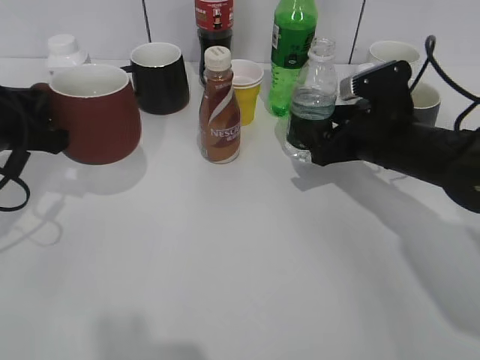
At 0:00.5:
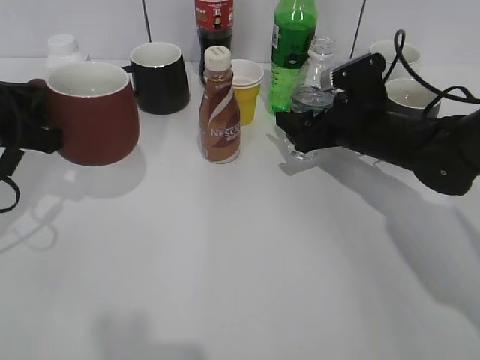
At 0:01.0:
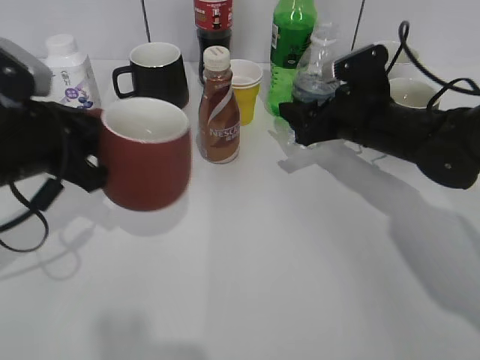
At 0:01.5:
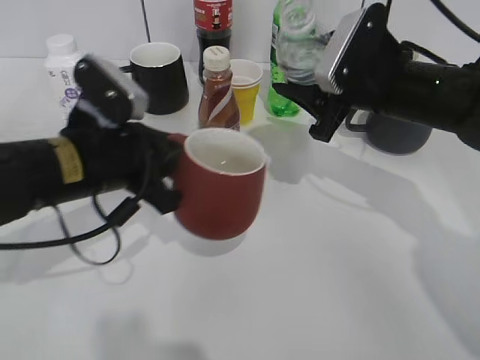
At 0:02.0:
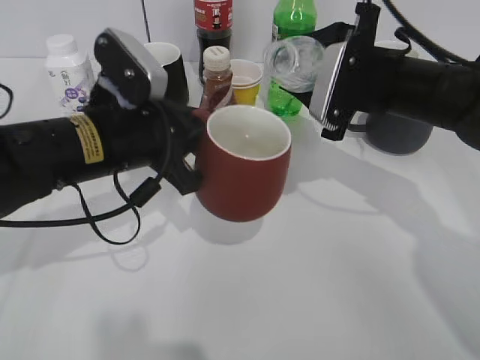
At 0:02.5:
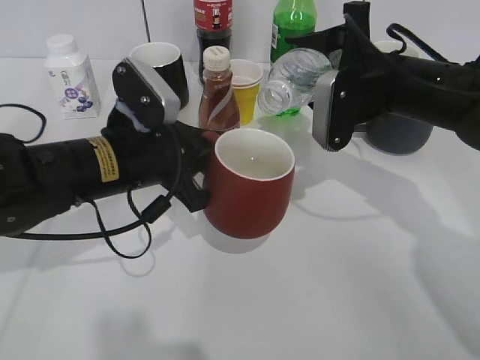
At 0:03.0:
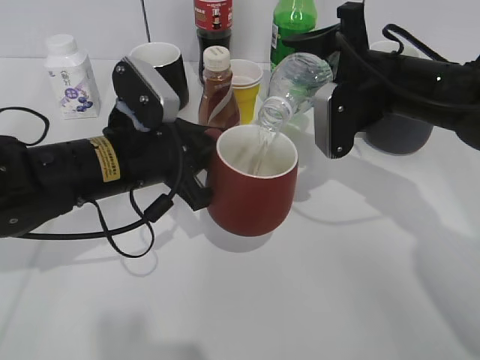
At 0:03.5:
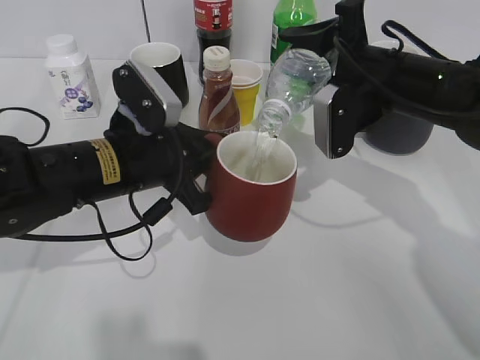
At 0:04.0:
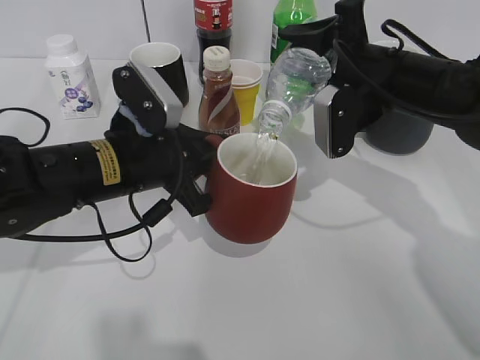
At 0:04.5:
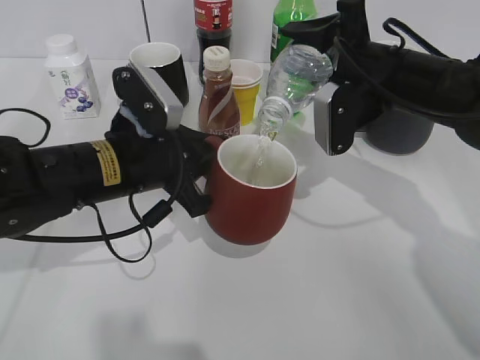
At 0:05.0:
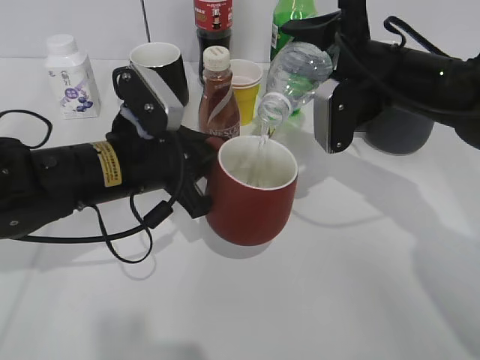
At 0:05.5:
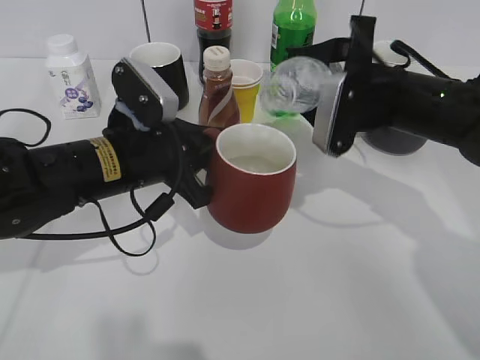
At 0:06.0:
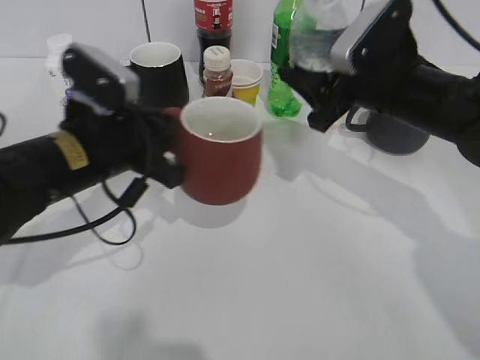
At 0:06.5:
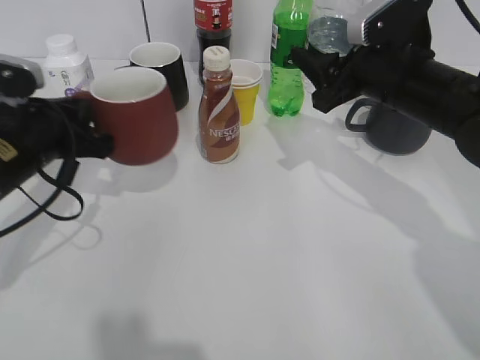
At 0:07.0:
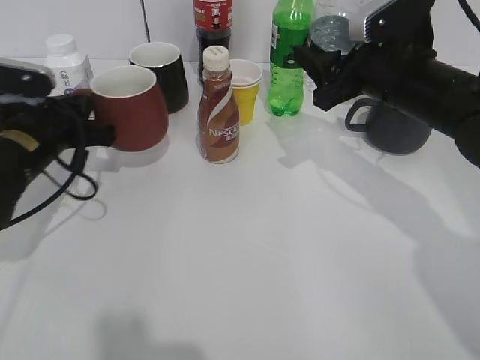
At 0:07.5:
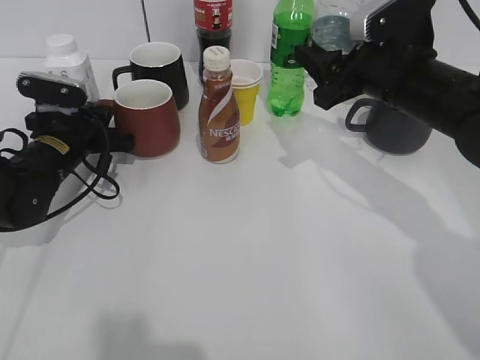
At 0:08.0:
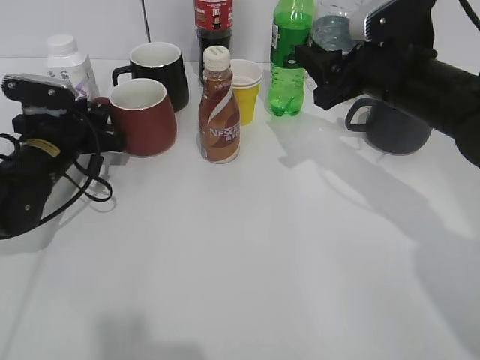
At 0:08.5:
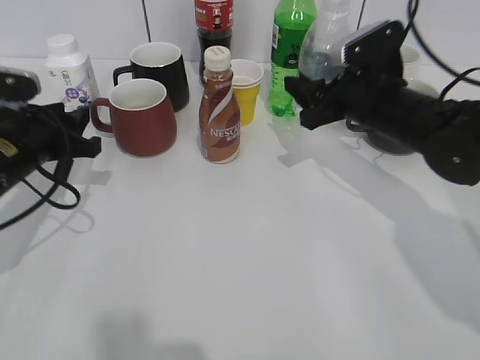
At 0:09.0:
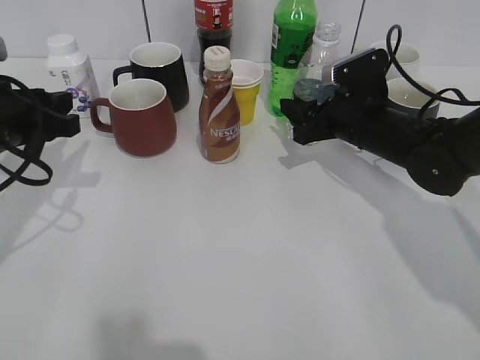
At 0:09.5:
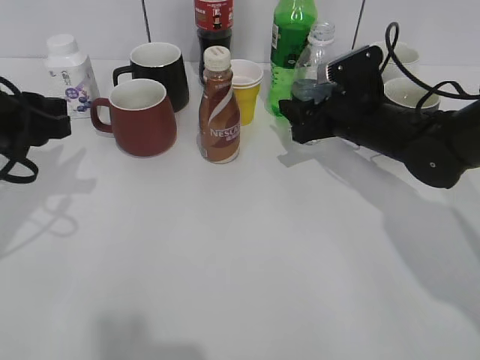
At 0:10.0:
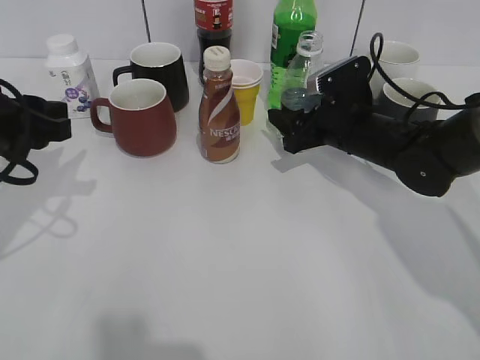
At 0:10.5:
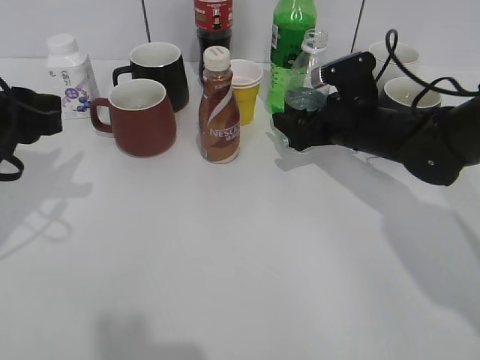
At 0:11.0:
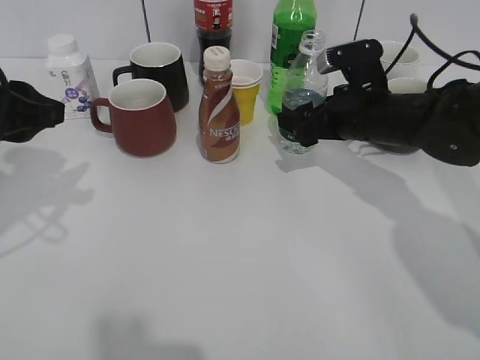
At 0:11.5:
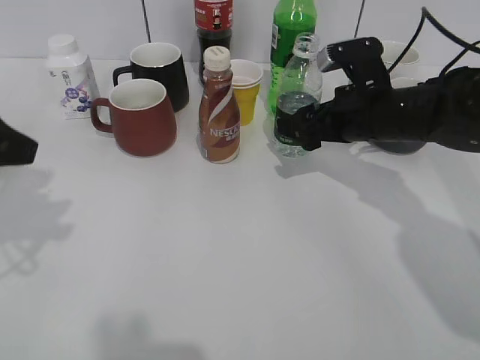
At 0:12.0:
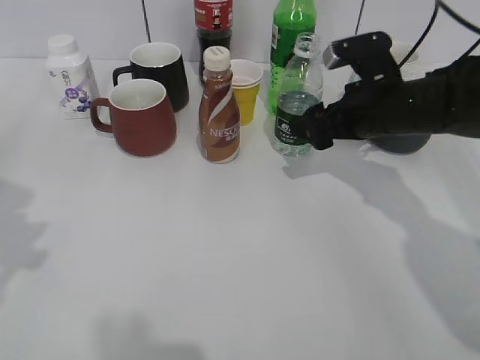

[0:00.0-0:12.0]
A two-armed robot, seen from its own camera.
Step, 0:00.0 to 0:00.5: Grasp the bottle with water with right gripper.
Step, 0:01.0 to 0:05.0: Pour the water from bottle to cup with right gripper.
Step, 0:05.5 to 0:07.5: Place the red cup on the table with left gripper.
0:00.0 to 0:02.0: The right gripper heads upward, covering approximately 5 cm, and closes. Meanwhile the left gripper heads to the right, covering roughly 15 cm.
0:06.0 to 0:08.0: The left gripper shifts approximately 15 cm forward, to the left and downward, and opens up.
0:08.0 to 0:10.0: The left gripper shifts approximately 15 cm upward and backward. The right gripper travels downward by about 10 cm.
0:10.0 to 0:12.0: The left gripper is displaced backward and upward by roughly 15 cm. The right gripper shifts by roughly 5 cm, and opens.

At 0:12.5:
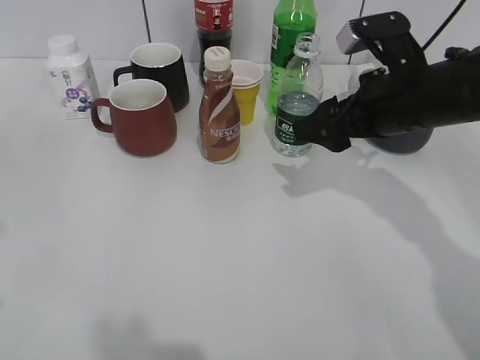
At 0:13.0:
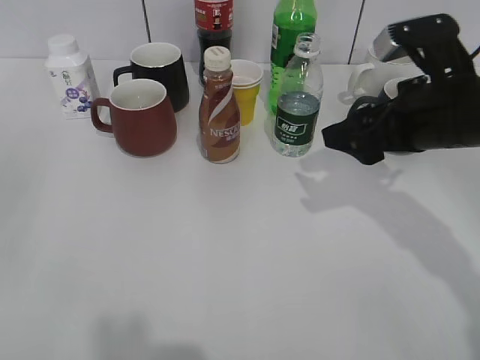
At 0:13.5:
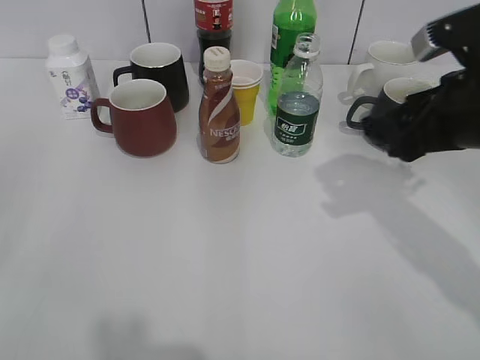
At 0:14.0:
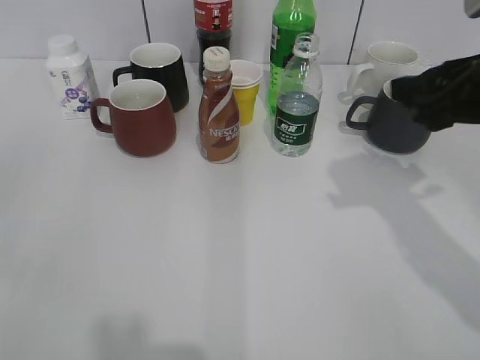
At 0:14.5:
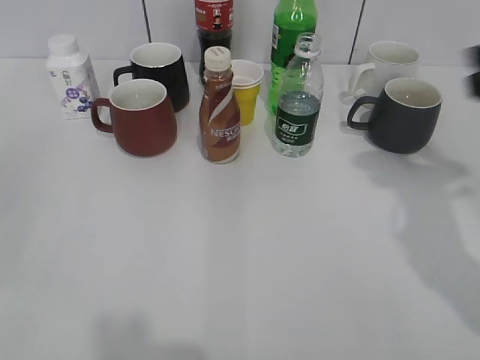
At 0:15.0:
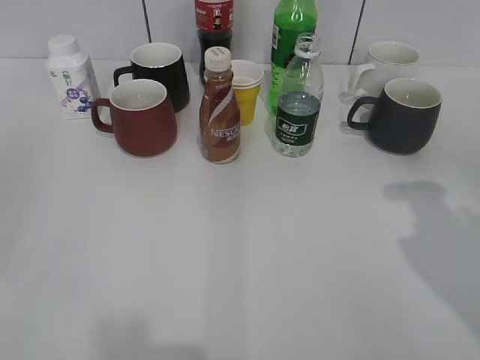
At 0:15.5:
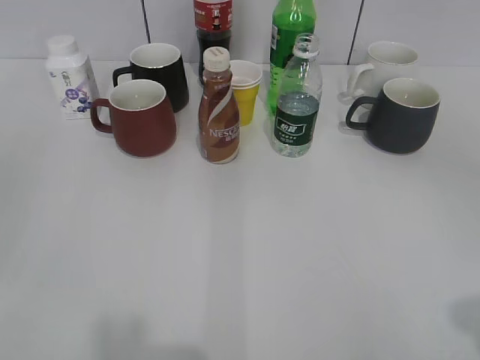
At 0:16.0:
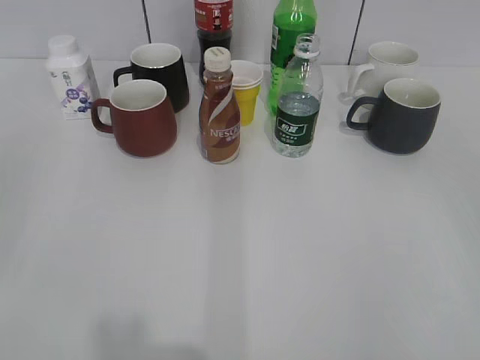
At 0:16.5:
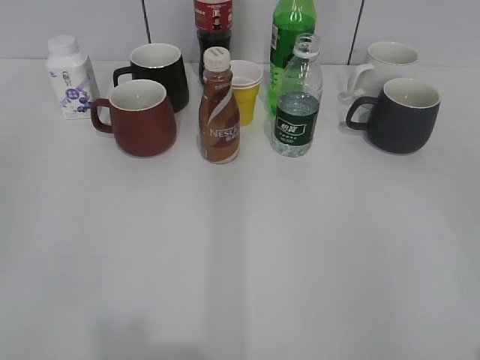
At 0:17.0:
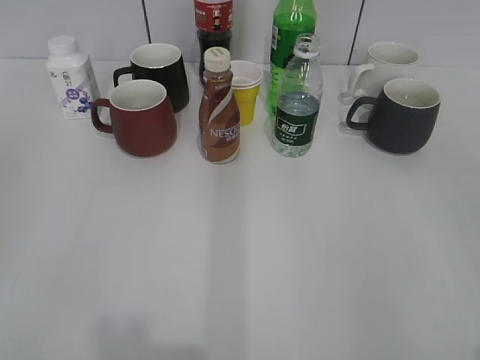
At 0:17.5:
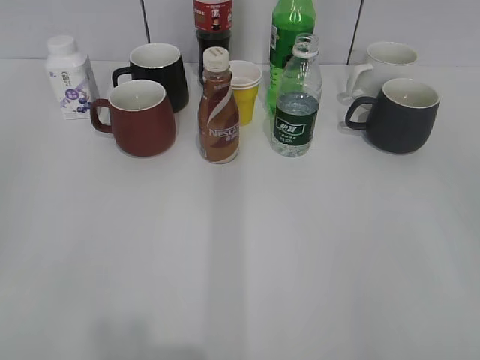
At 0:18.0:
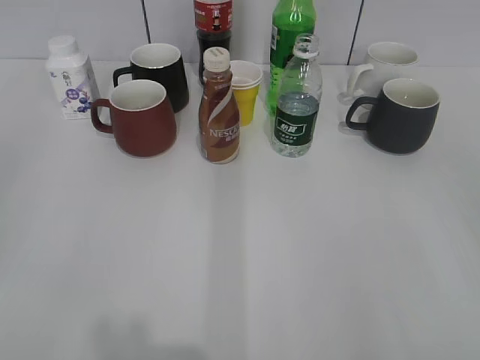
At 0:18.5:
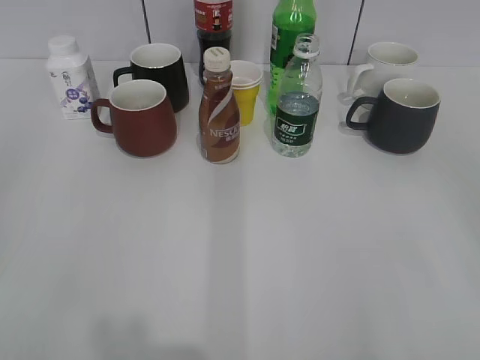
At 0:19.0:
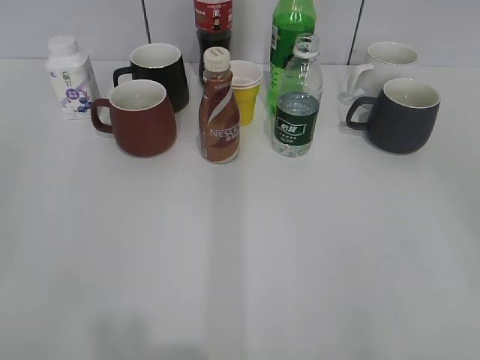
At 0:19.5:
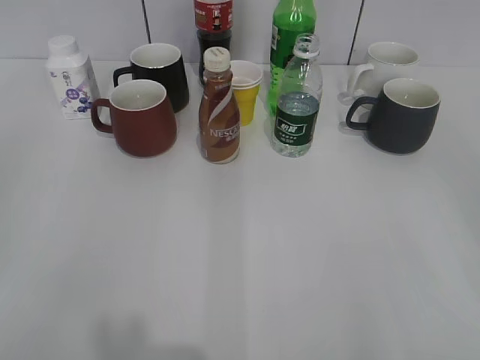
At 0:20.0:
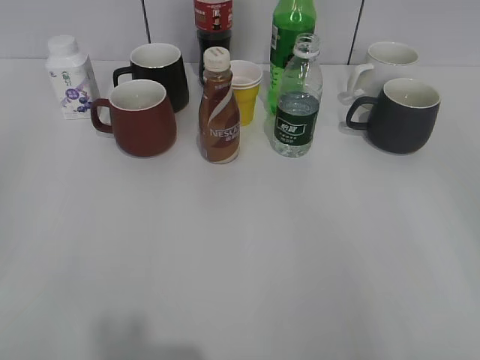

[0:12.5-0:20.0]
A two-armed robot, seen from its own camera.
0:12.5 to 0:14.5: The right gripper is displaced to the right, upward and backward by approximately 15 cm, and closes its fingers. The left gripper heads backward, covering roughly 10 cm.
0:14.5 to 0:16.5: The right gripper is displaced backward by some 25 cm, and closes.
0:18.0 to 0:20.0: Both grippers stay about where they are.

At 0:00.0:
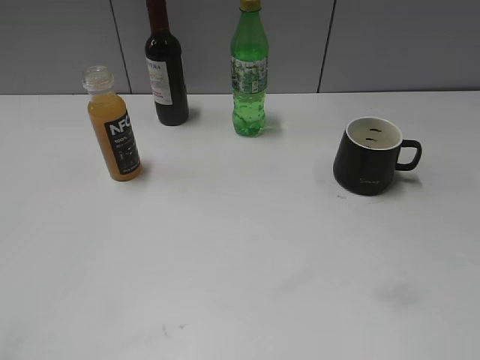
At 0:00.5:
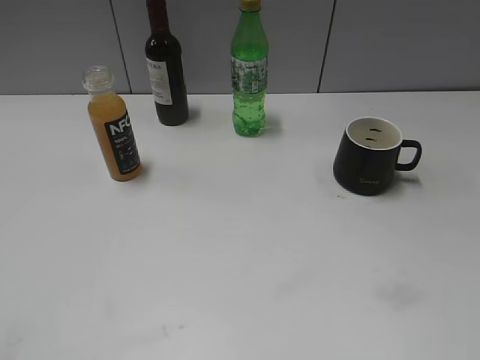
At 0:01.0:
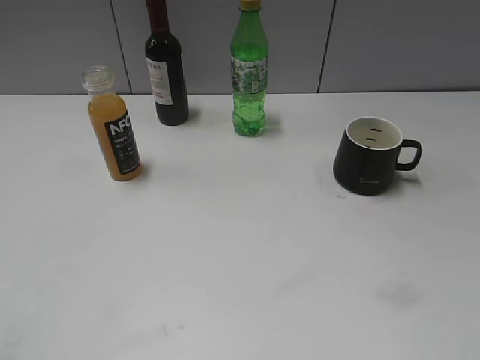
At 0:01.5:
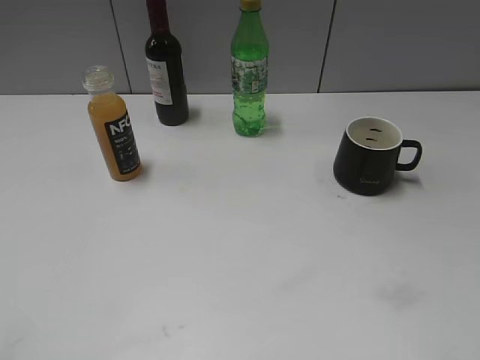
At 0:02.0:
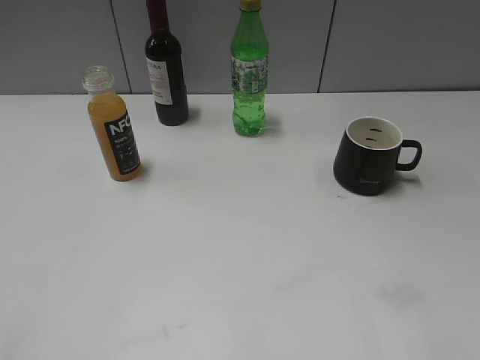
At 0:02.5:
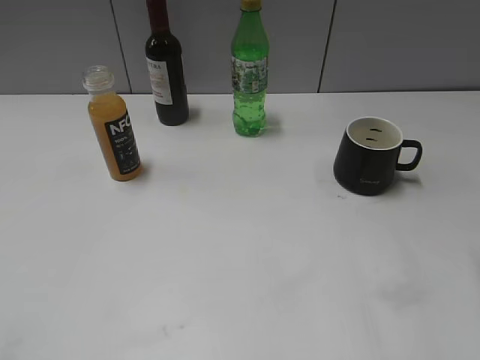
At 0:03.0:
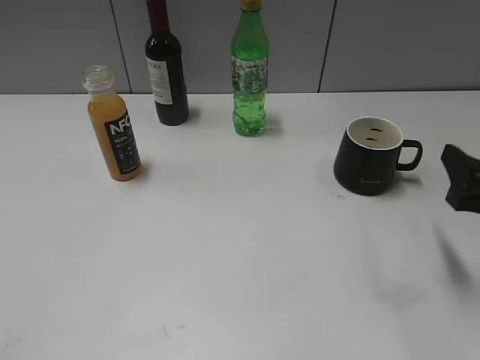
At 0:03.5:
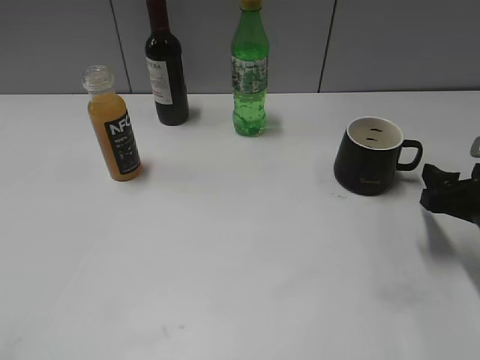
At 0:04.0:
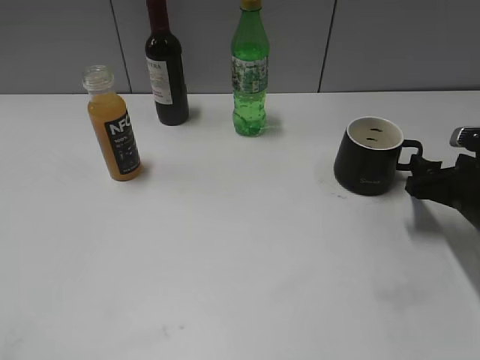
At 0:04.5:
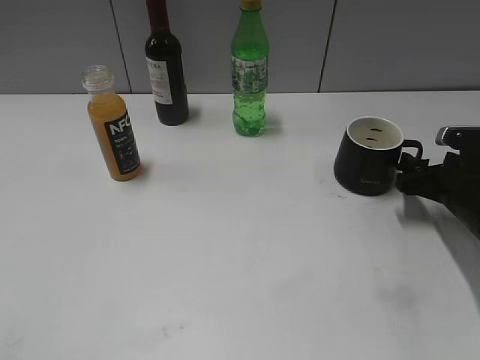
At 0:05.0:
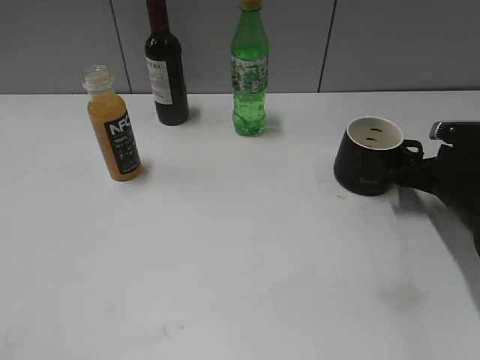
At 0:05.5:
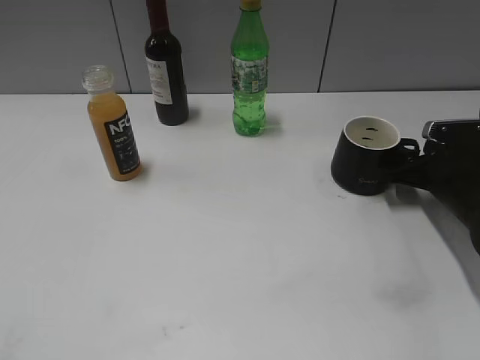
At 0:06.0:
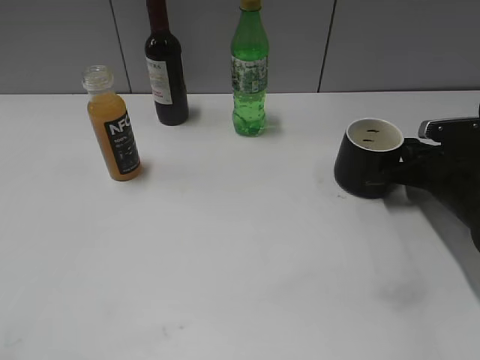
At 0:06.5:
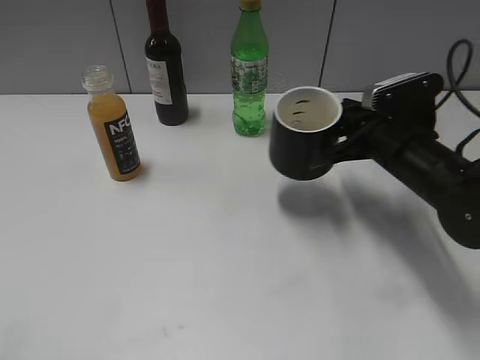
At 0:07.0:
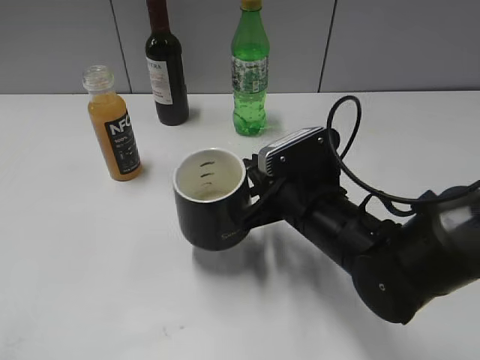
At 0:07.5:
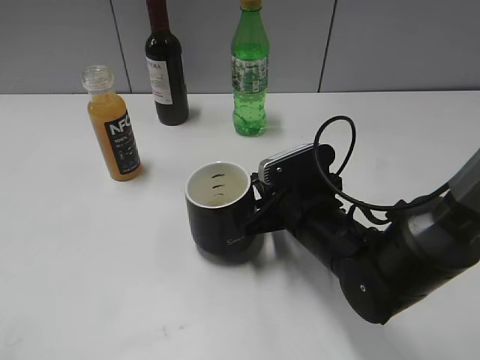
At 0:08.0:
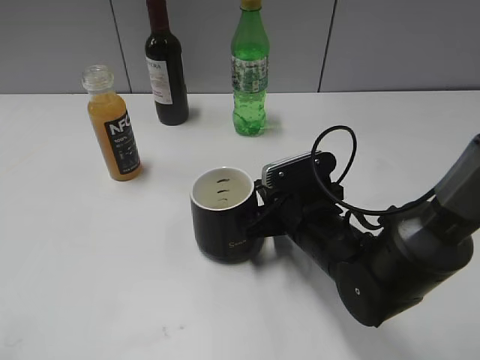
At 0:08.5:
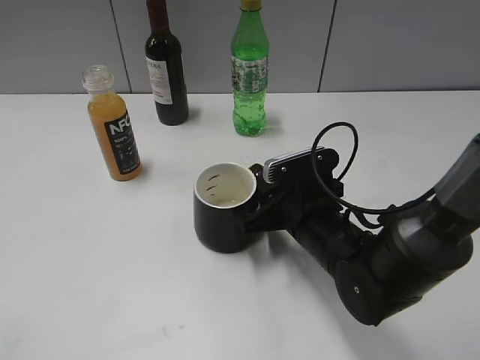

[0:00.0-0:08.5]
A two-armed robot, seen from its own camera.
Step, 0:03.0 to 0:06.0: Grasp the black cup with right gripper.
0:02.0 to 0:04.0: The right gripper is displaced forward and downward by roughly 30 cm.
0:04.0 to 0:06.5: The right gripper heads to the left, covering some 10 cm, and closes.
0:06.5 to 0:08.5: The right gripper goes roughly 15 cm to the left, downward and backward.
